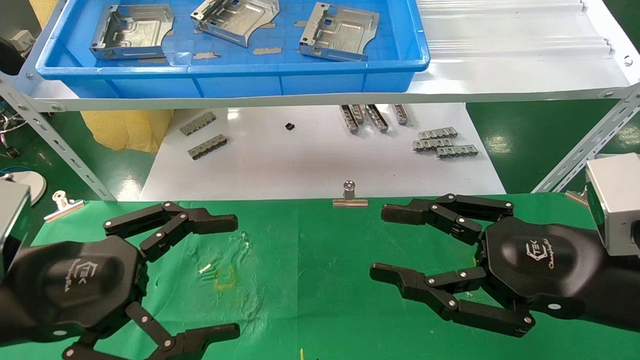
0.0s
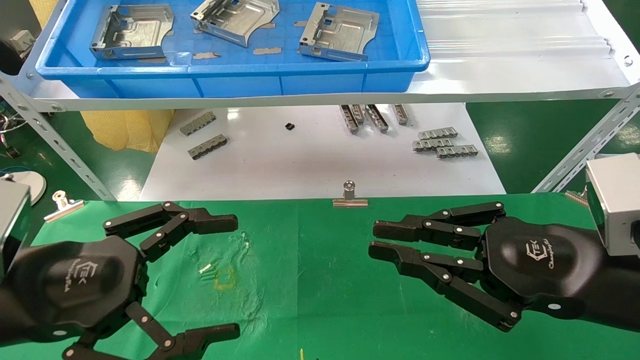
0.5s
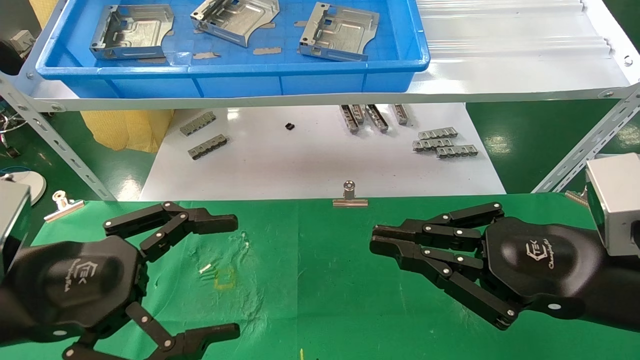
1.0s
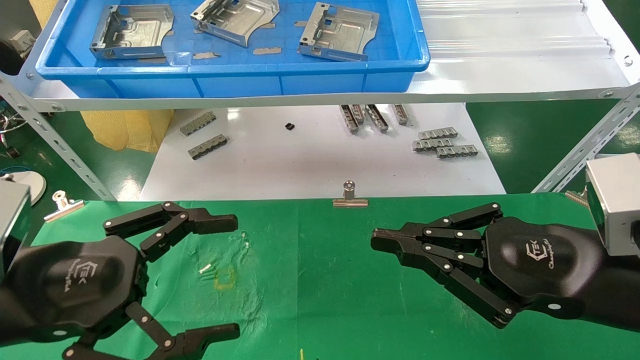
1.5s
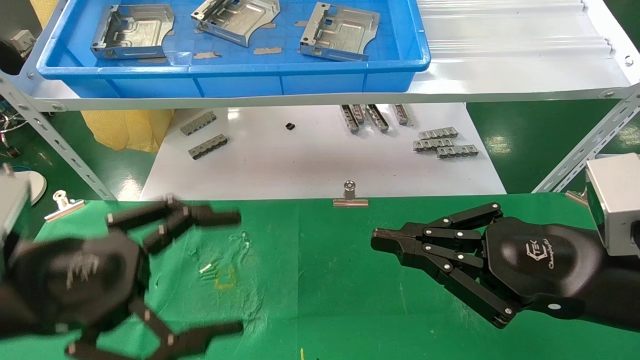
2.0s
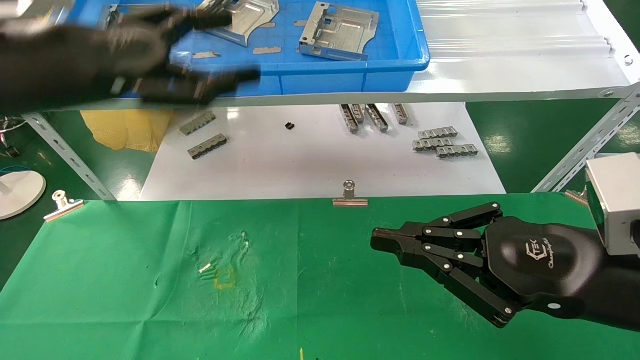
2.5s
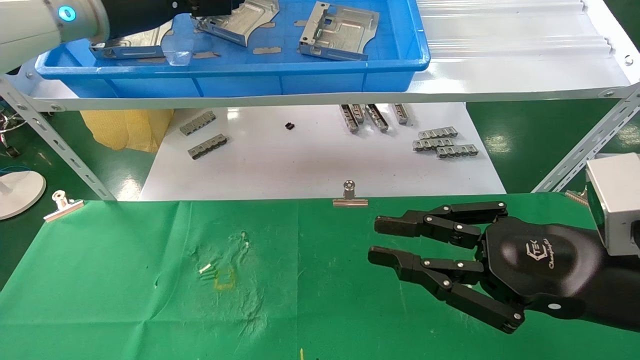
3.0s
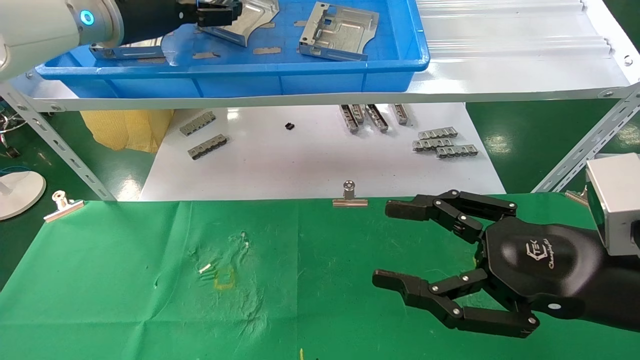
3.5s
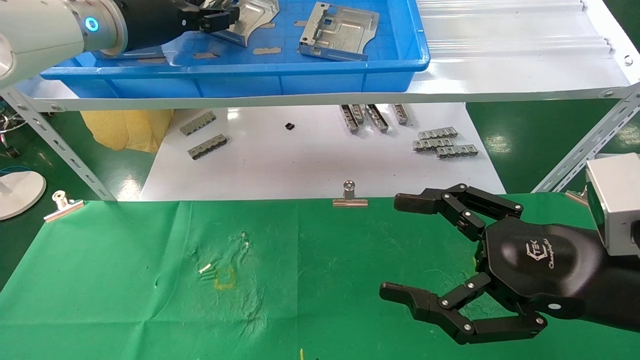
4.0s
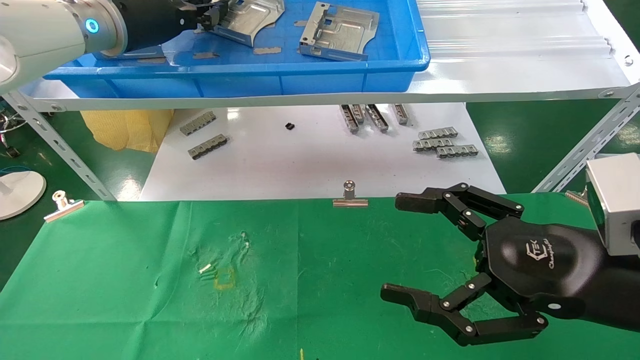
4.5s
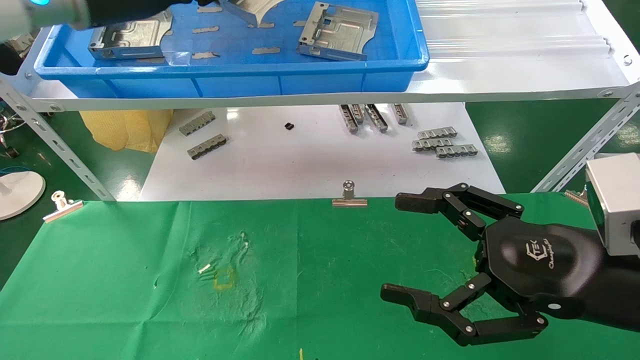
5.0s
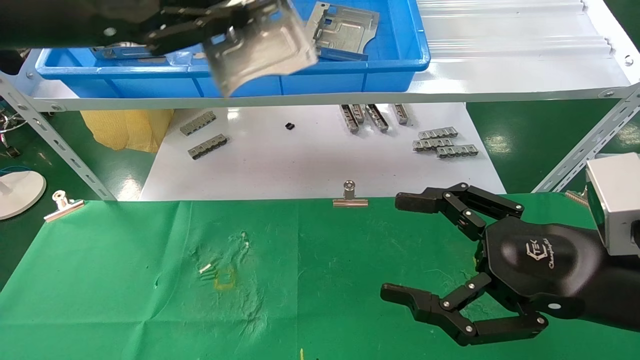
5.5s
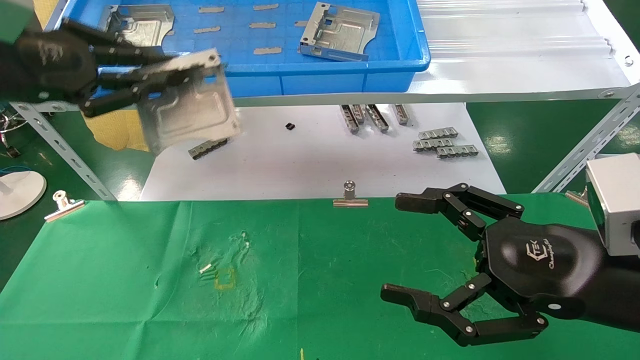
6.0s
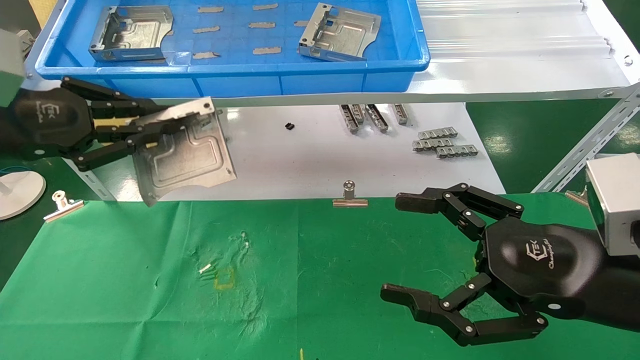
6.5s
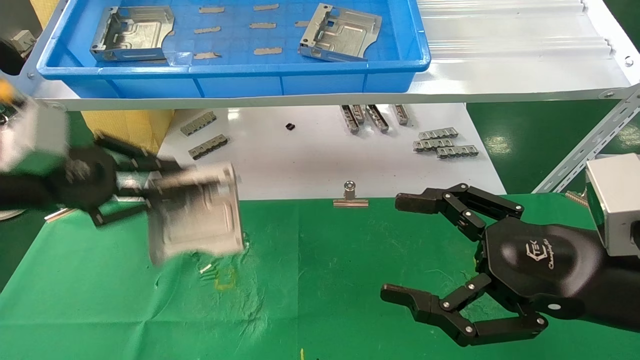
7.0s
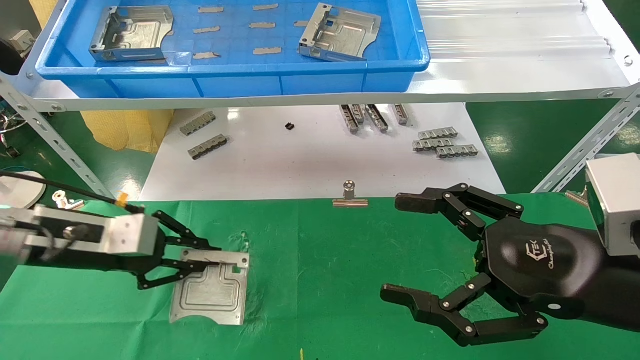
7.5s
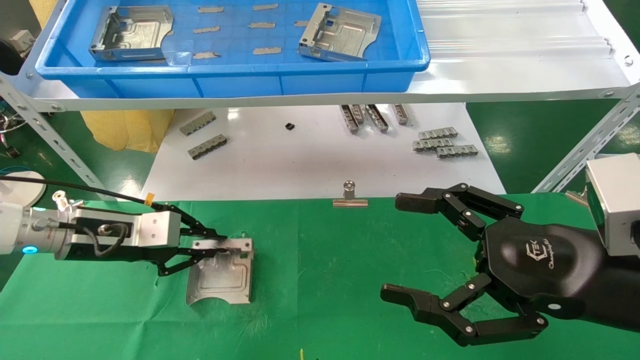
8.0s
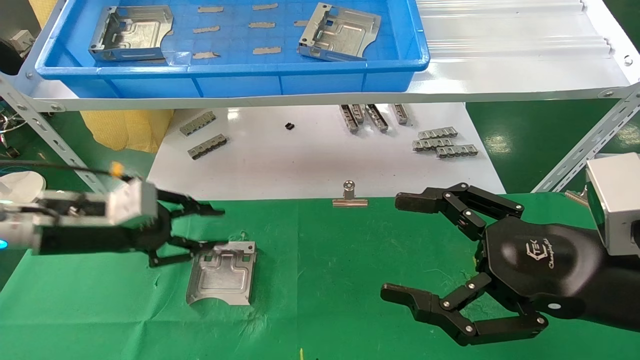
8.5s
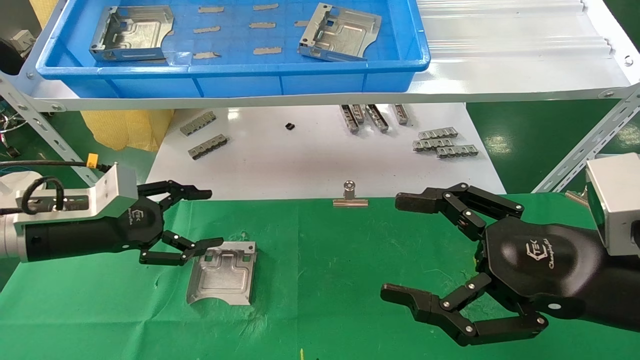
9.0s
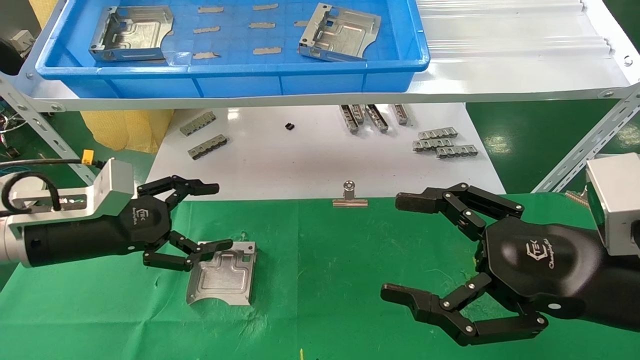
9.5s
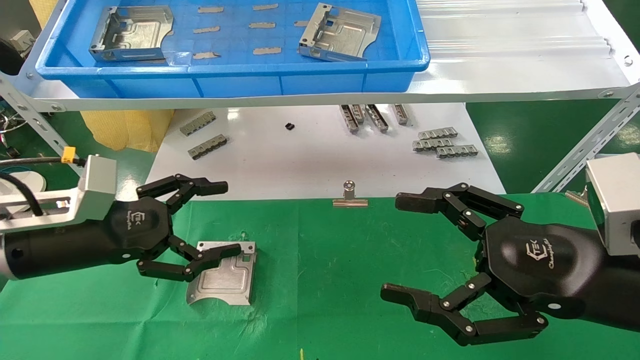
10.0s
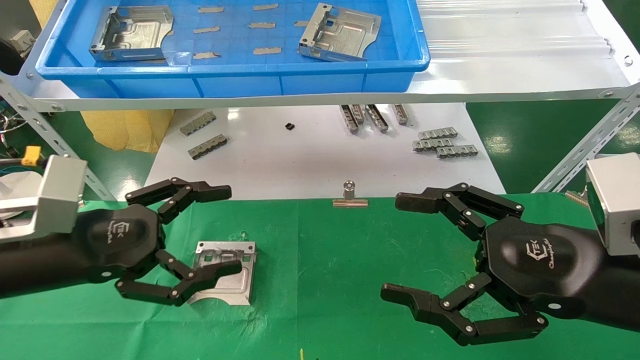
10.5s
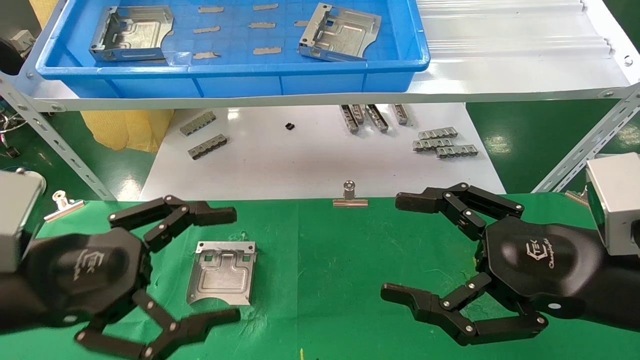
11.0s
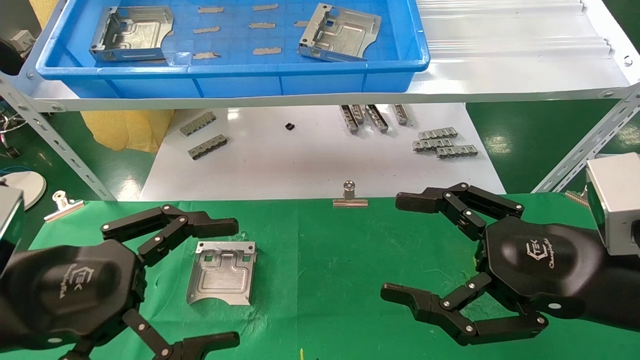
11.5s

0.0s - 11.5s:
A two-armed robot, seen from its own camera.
Task of the whole recording: use the mechanical arm to pick up the parts and place them on the table.
Step, 2.5s - 4.5s: Pick up the hard drive bracket from the feeding area.
Step, 5.0s - 8.5s: Place the hard drive bracket into the box.
0.0s - 2.0s: The right gripper closes.
2.0s - 4.0s: The left gripper heads forward and upward, covering roughly 30 cm, and closes its fingers. Meanwhile the right gripper opens its fingers.
4.0s - 6.0s: The left gripper travels backward and to the left by about 20 cm, and closes.
6.0s - 7.5s: The left gripper shifts about 20 cm downward.
7.5s - 9.5s: The left gripper opens its fingers.
9.5s - 11.5s: The left gripper moves backward, roughly 15 cm.

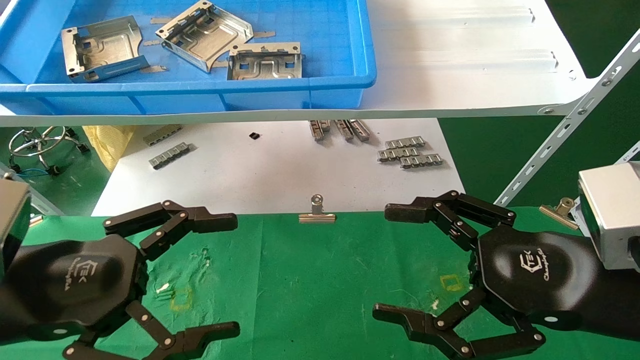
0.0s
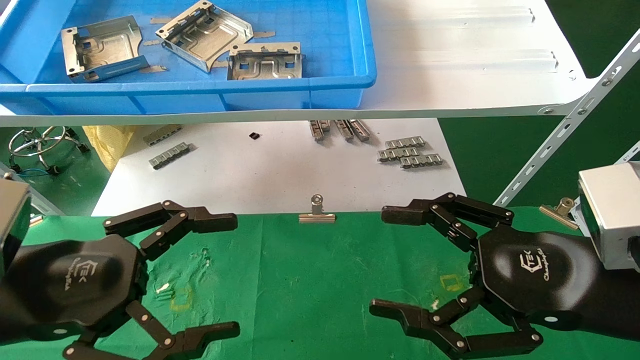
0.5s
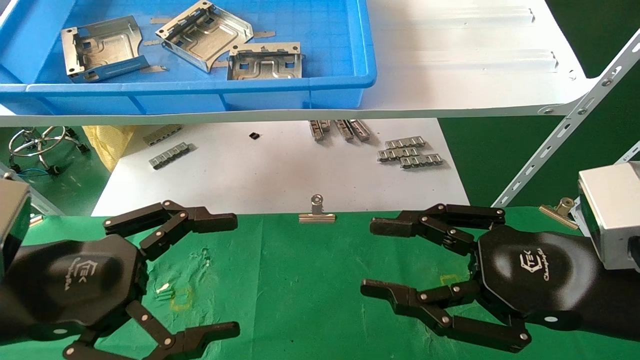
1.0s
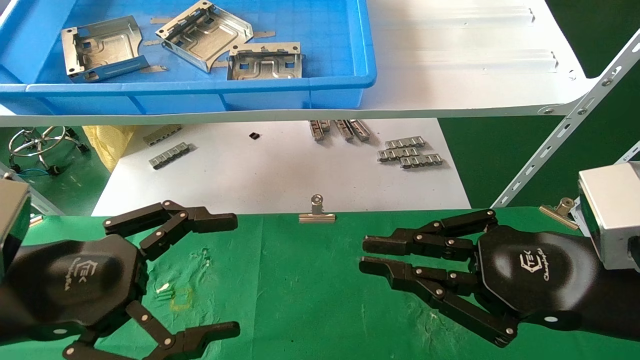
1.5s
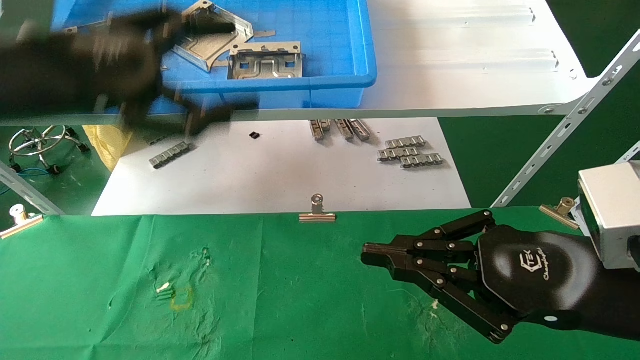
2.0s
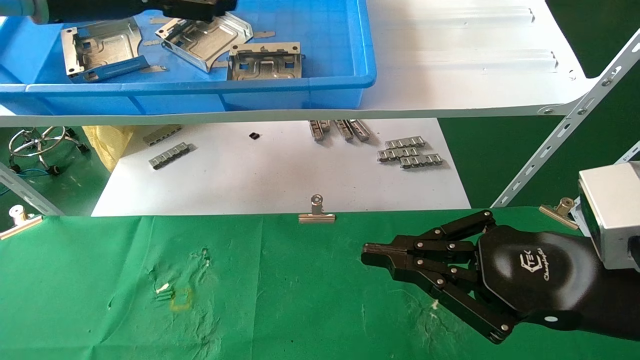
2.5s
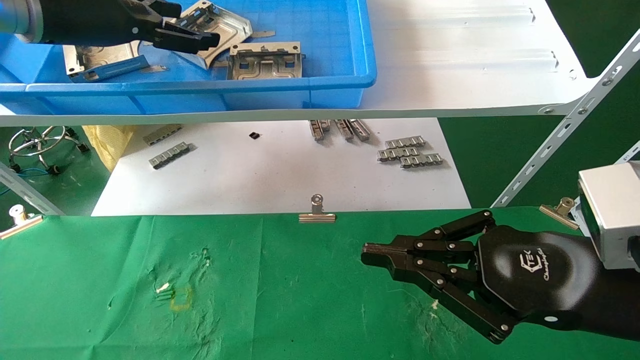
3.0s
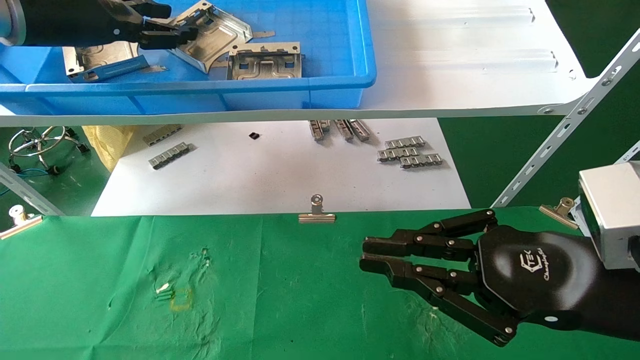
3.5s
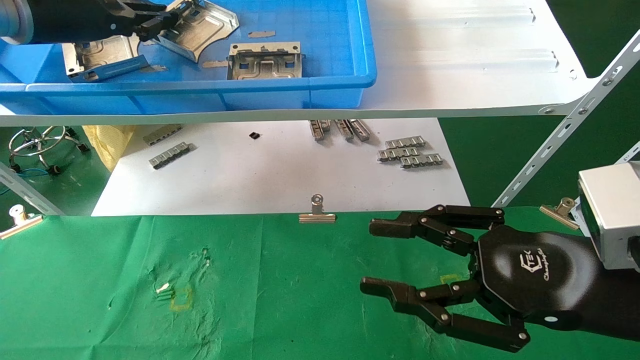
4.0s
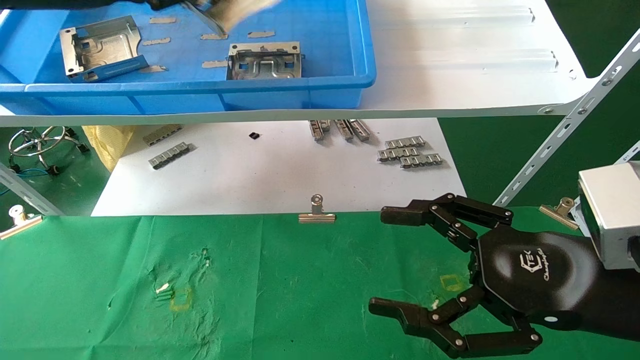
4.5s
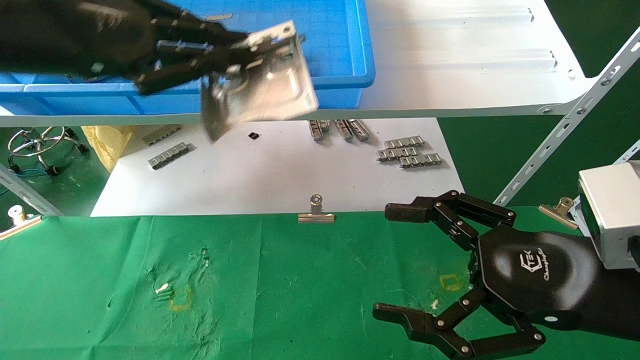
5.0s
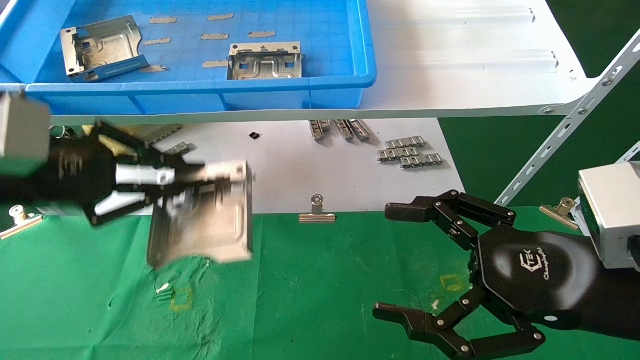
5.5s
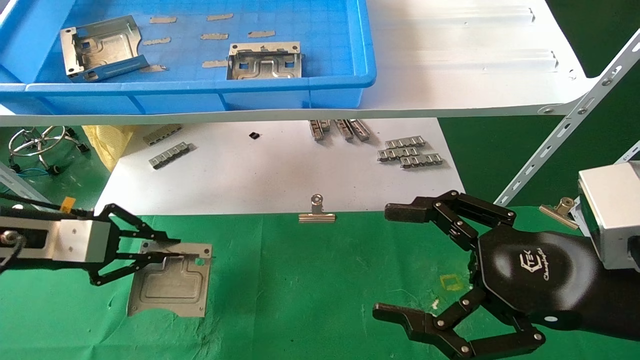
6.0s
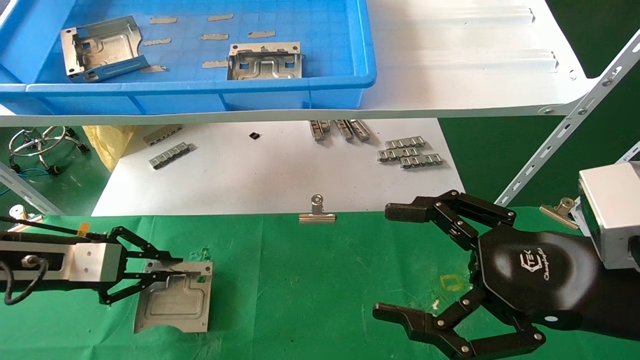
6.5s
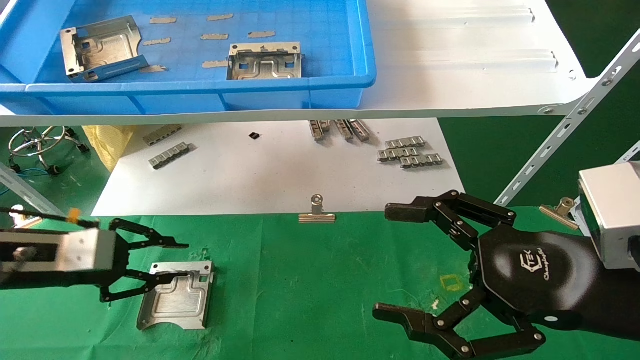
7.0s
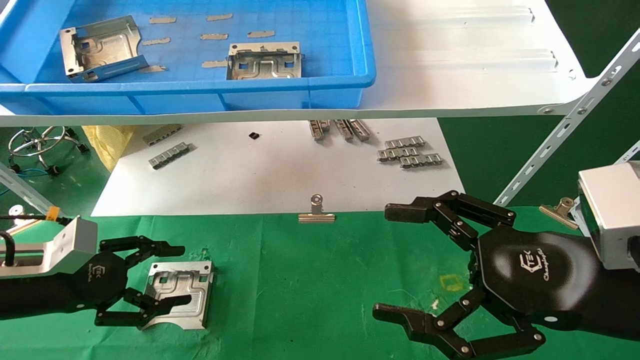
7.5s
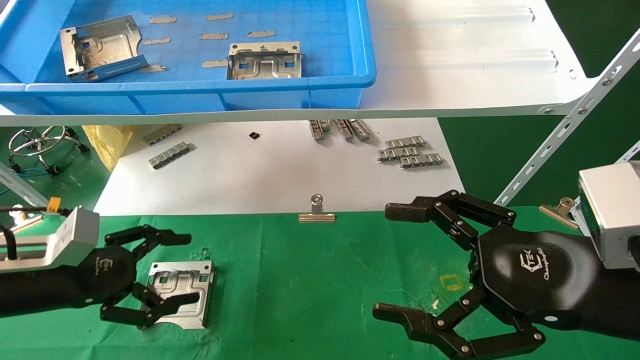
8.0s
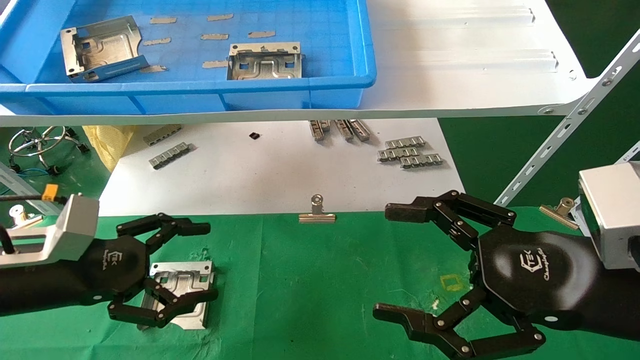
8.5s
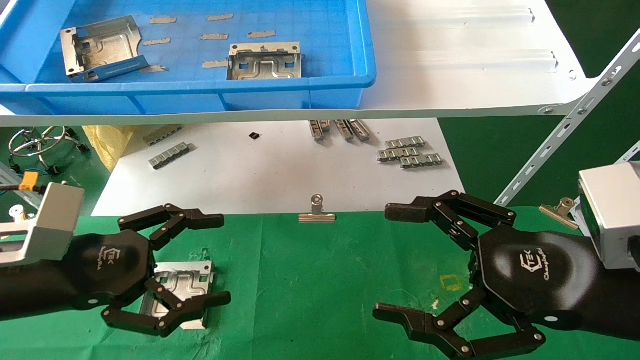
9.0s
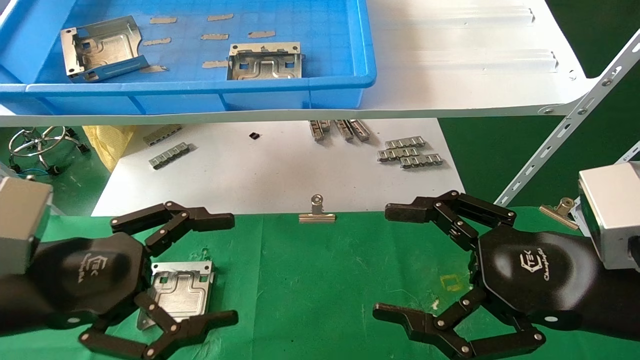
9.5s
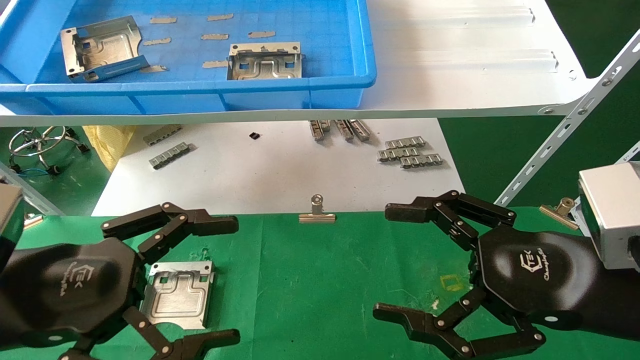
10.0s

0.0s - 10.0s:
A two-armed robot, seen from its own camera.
Task of the whole recording: use the mechanical arm to pick up the parts and place them on the table.
Step, 2.0s - 4.0s: Pick up the hard drive bracket from the feeding area.
Step, 4.5s - 6.5s: Place the hard drive bracket into the box.
0.0s - 2.0s: The right gripper closes. The left gripper heads upward and forward, covering roughly 20 cm.
2.0s - 4.0s: The right gripper opens its fingers, while the left gripper goes roughly 15 cm forward, upward and to the left, and closes.
4.0s - 6.0s: The right gripper opens up. The left gripper shifts roughly 25 cm downward.
6.0s - 8.0s: The left gripper travels downward by roughly 5 cm, and opens its fingers.
8.0s - 10.0s: The left gripper is displaced backward, to the right and upward by roughly 15 cm.
